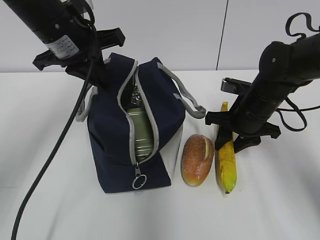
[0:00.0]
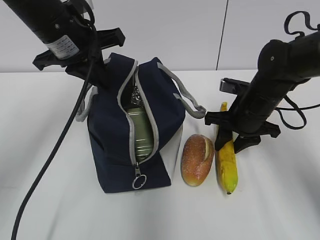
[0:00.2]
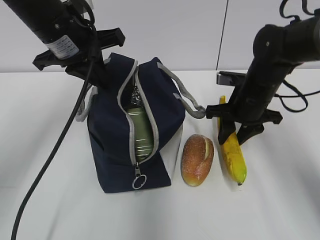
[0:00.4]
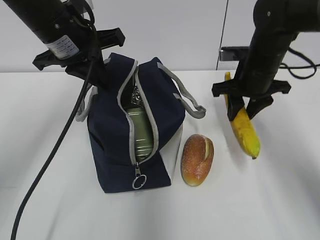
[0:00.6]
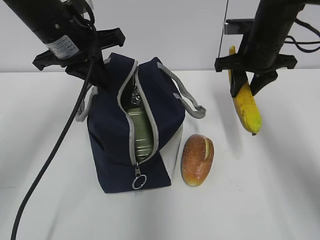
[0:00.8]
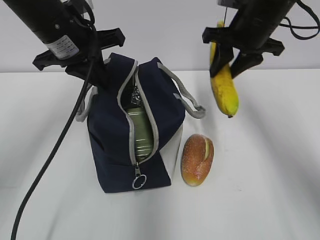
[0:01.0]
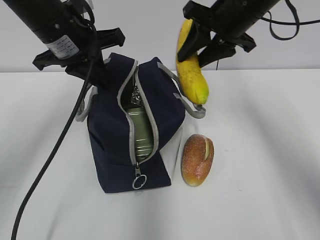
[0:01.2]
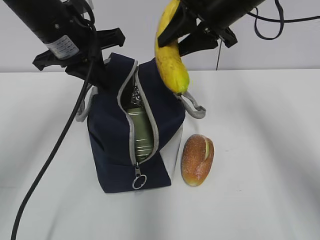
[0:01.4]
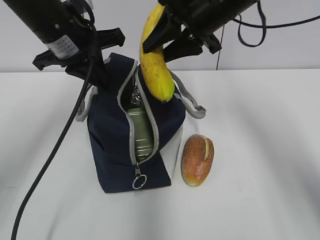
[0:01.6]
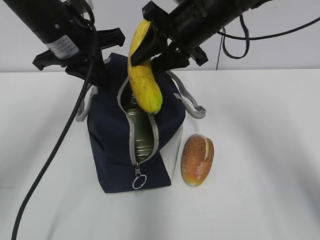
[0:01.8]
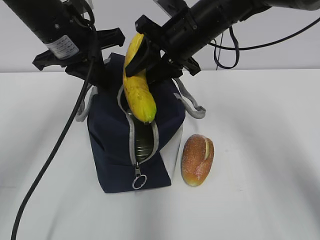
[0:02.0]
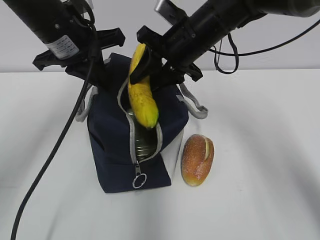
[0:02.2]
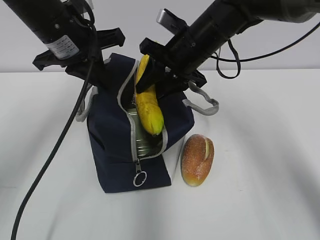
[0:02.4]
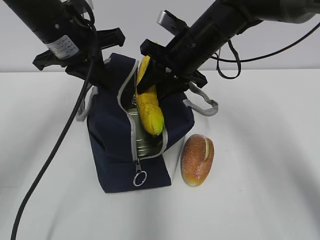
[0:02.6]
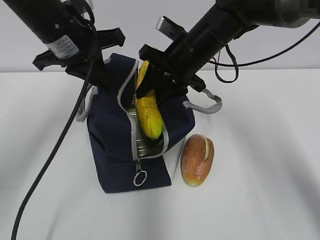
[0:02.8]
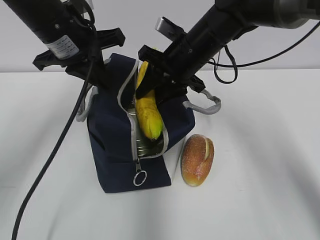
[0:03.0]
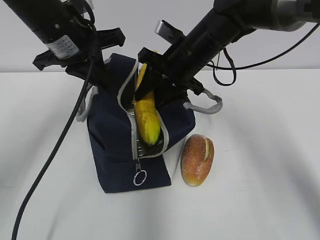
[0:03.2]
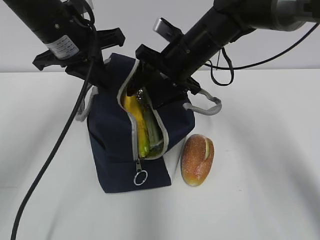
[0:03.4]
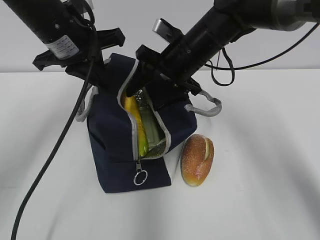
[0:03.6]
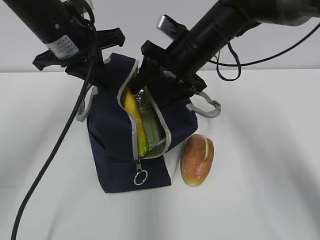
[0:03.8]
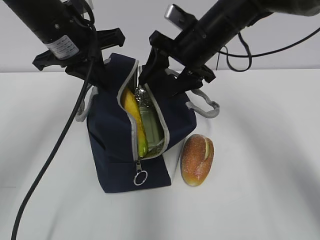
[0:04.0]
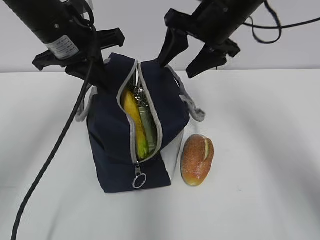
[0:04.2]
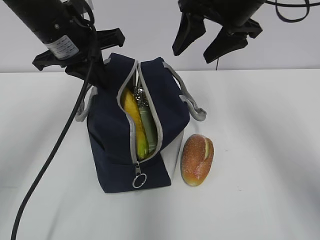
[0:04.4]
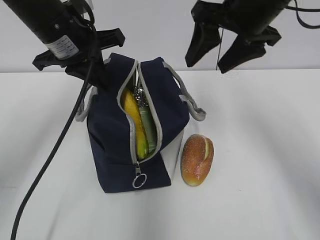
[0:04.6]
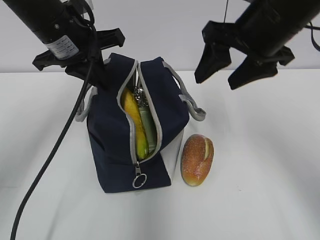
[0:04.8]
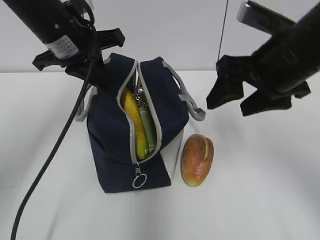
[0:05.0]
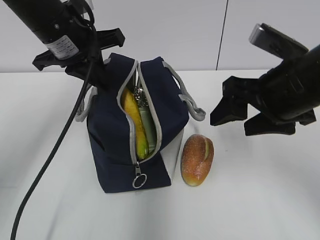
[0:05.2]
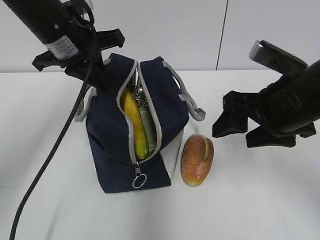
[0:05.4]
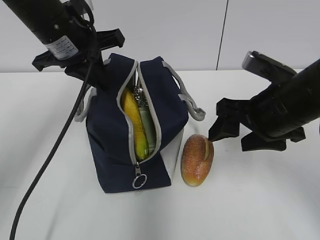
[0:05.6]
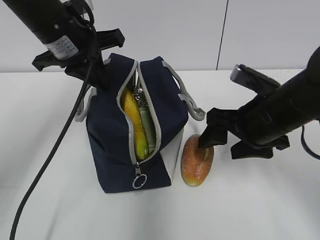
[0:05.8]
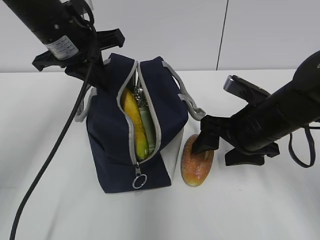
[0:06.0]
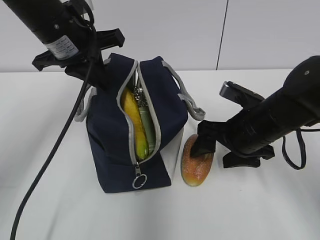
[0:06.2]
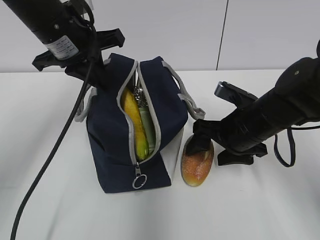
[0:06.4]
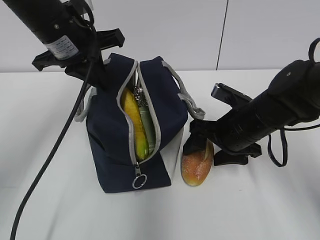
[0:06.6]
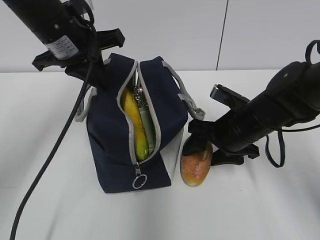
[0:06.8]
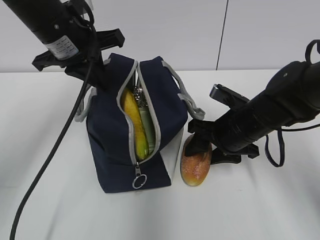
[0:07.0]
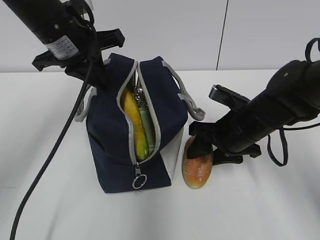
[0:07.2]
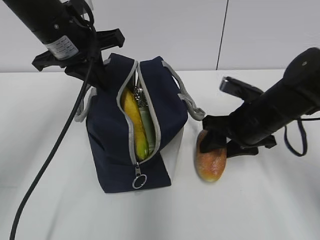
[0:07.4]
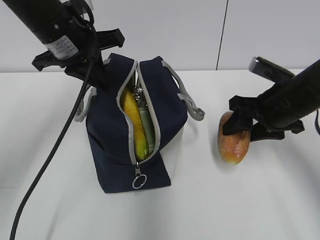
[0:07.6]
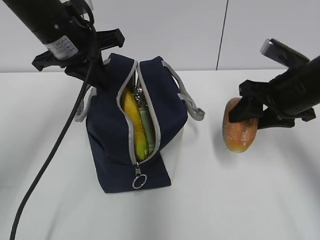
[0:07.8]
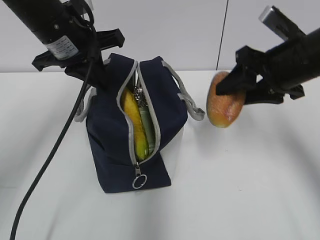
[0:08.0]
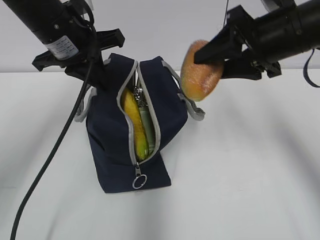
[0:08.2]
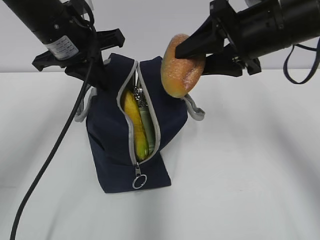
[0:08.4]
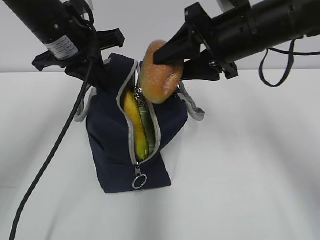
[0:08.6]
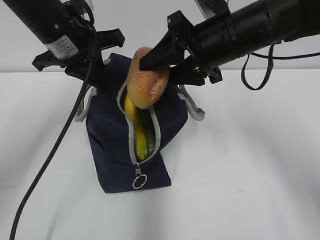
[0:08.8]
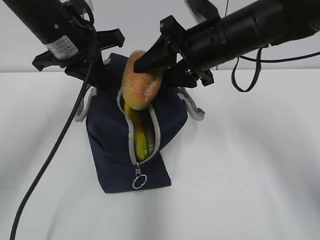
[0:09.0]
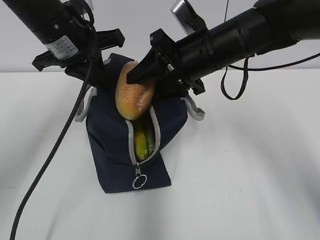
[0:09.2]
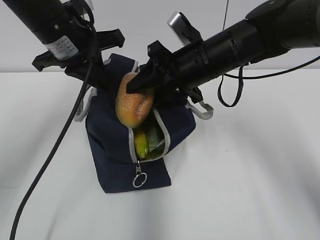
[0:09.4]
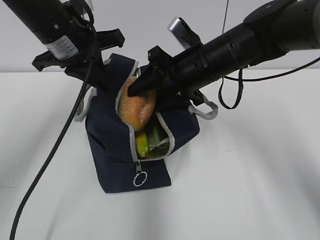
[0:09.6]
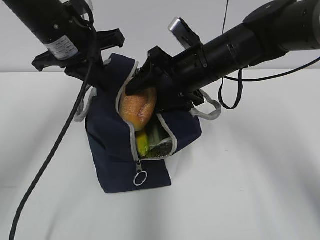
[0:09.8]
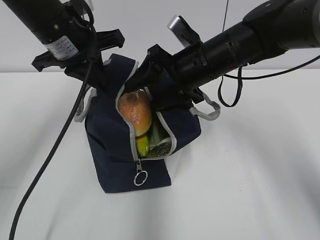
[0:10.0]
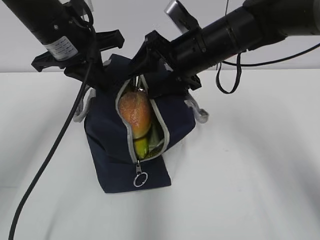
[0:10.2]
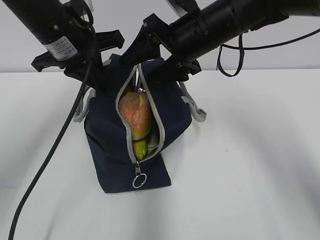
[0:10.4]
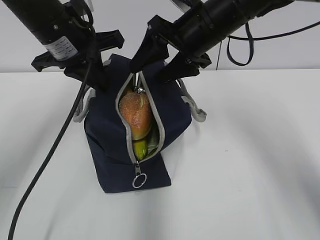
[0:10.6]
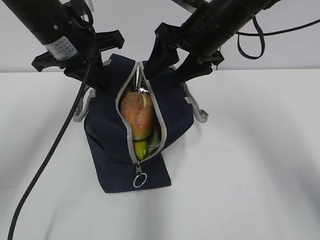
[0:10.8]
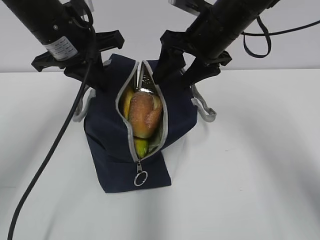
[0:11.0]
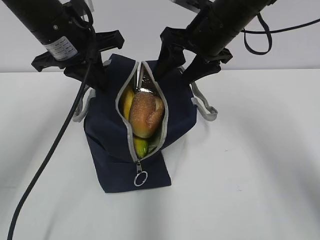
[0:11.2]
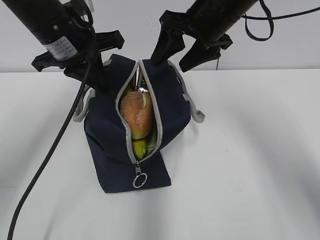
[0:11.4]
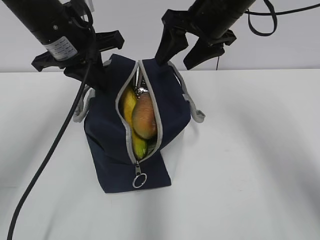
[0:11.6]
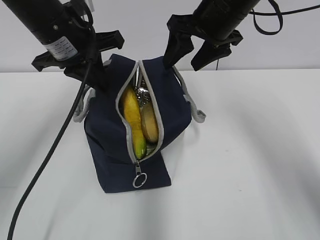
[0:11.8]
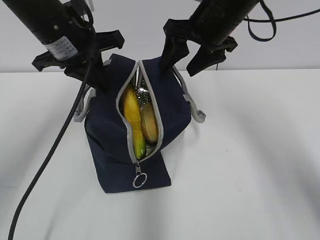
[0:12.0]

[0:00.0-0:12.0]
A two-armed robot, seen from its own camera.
0:00.0 to 0:01.6: The right gripper moves upward, approximately 20 cm.
0:01.6 to 0:03.0: The right gripper heads downward, covering roughly 10 cm.
0:03.0 to 0:04.4: The right gripper moves upward and to the right, about 10 cm, and opens up.
0:04.4 to 0:06.0: The right gripper shifts roughly 20 cm downward and backward.
0:06.0 to 0:07.6: The right gripper shifts by roughly 5 cm.
0:07.6 to 0:09.0: The right gripper heads to the left and upward, covering some 15 cm.
0:09.0 to 0:10.4: The grippers stay close to where they were, moving slightly.

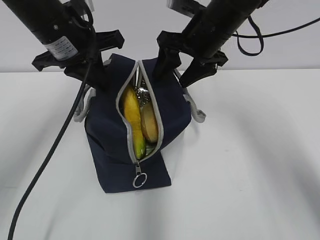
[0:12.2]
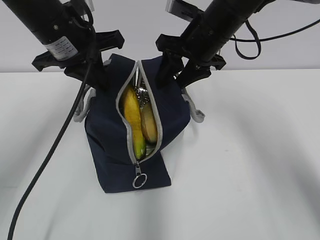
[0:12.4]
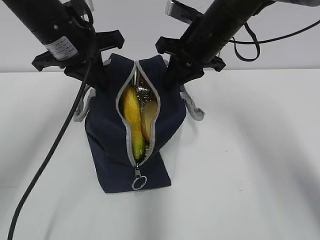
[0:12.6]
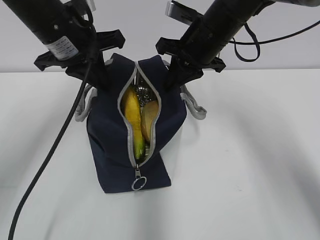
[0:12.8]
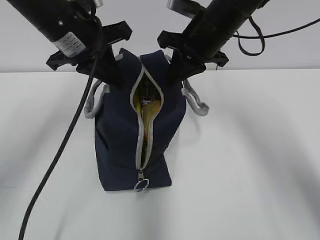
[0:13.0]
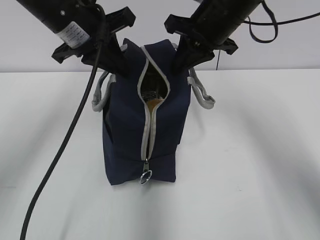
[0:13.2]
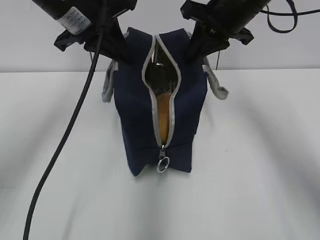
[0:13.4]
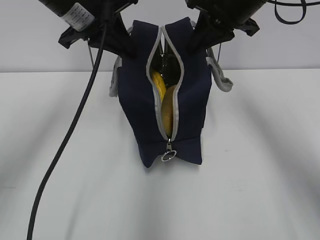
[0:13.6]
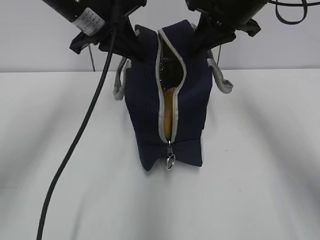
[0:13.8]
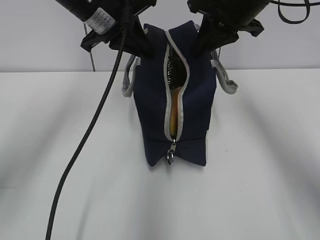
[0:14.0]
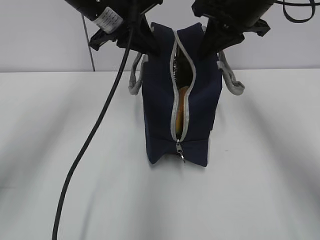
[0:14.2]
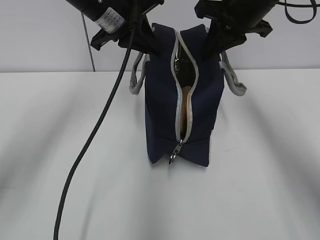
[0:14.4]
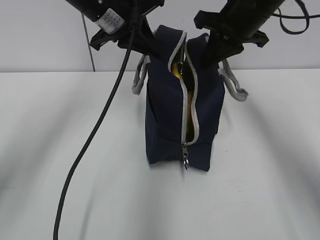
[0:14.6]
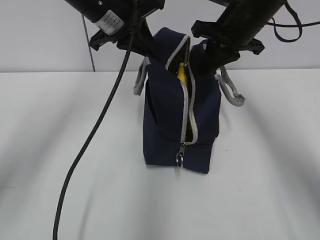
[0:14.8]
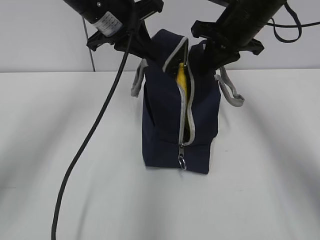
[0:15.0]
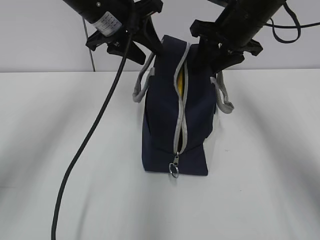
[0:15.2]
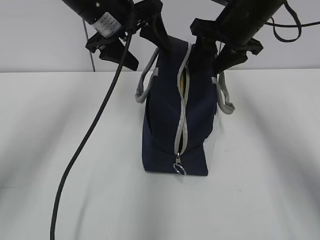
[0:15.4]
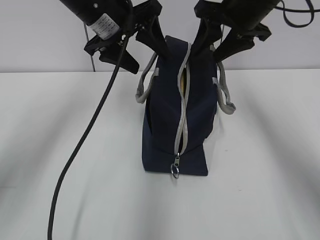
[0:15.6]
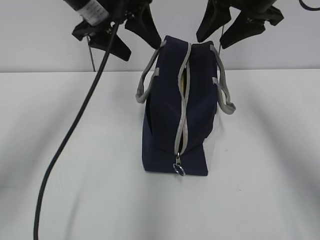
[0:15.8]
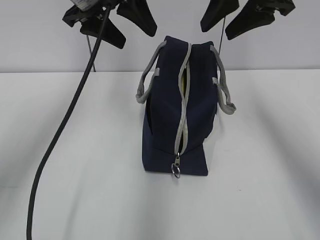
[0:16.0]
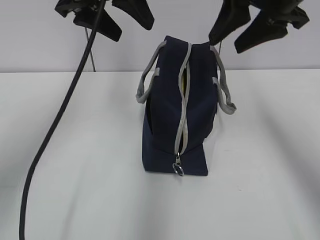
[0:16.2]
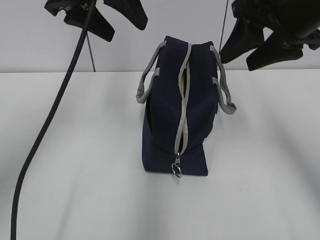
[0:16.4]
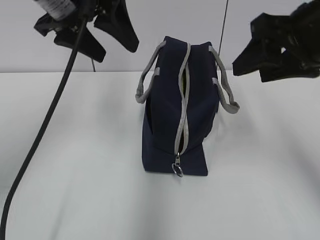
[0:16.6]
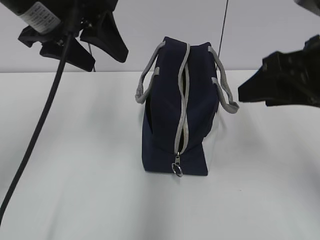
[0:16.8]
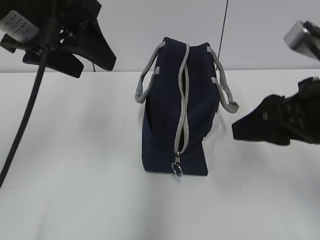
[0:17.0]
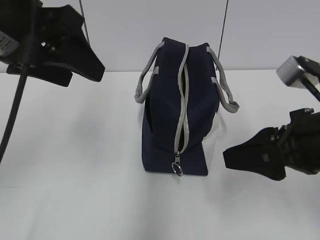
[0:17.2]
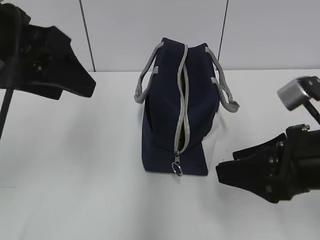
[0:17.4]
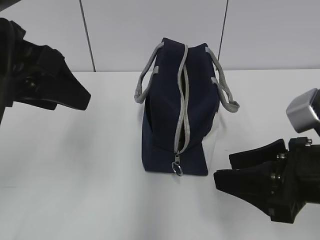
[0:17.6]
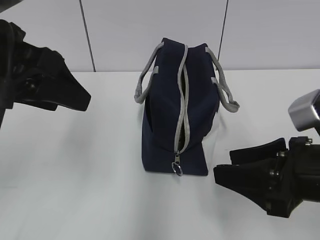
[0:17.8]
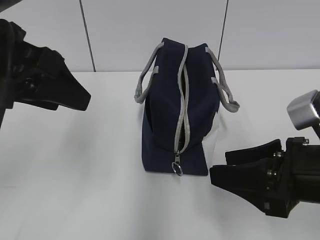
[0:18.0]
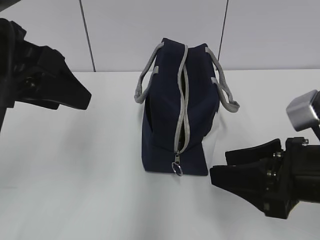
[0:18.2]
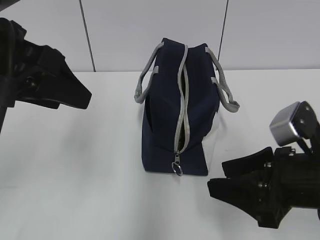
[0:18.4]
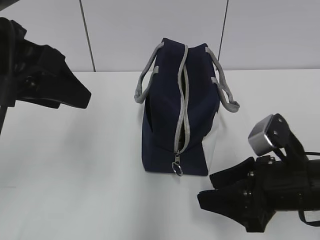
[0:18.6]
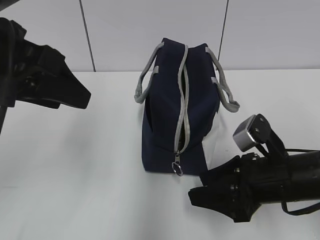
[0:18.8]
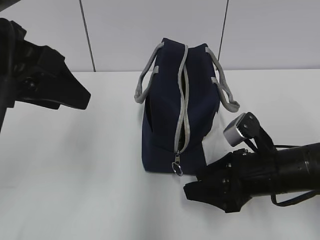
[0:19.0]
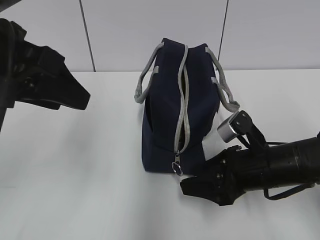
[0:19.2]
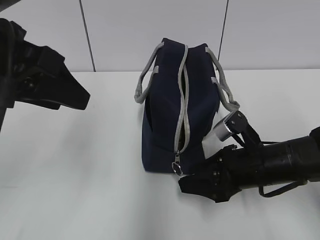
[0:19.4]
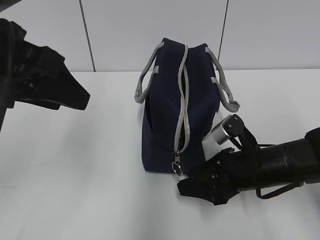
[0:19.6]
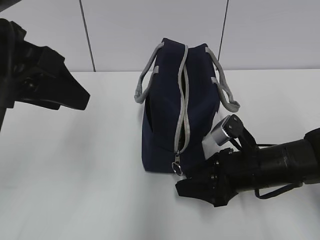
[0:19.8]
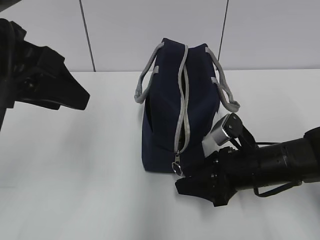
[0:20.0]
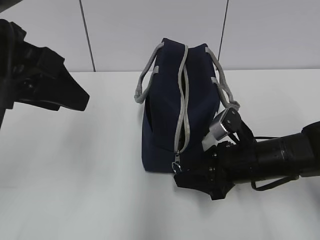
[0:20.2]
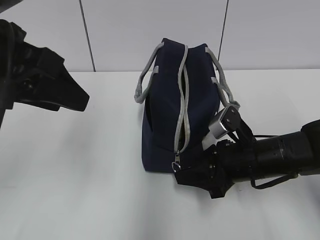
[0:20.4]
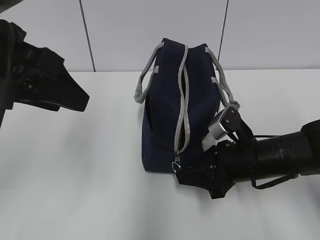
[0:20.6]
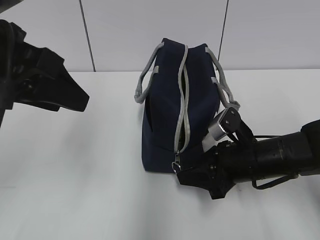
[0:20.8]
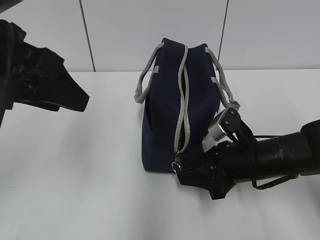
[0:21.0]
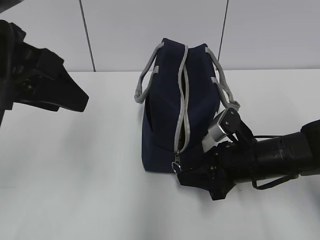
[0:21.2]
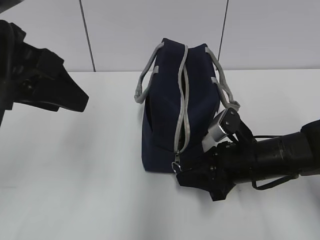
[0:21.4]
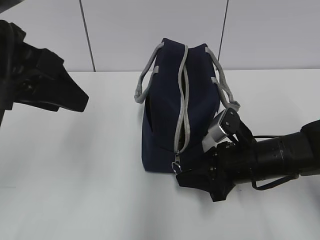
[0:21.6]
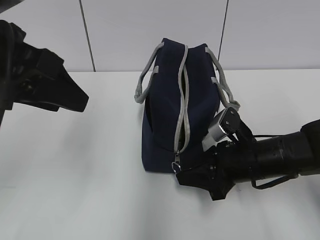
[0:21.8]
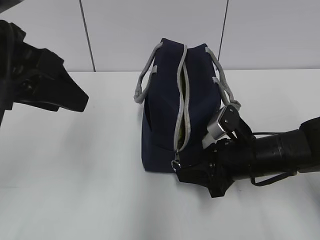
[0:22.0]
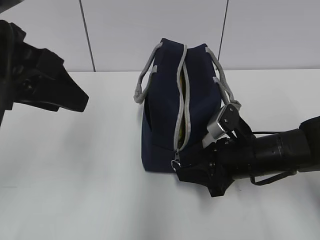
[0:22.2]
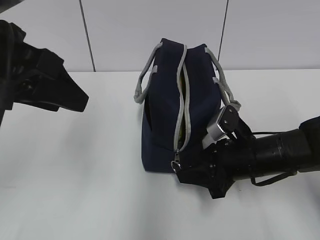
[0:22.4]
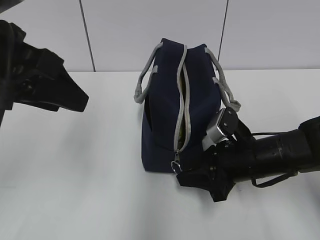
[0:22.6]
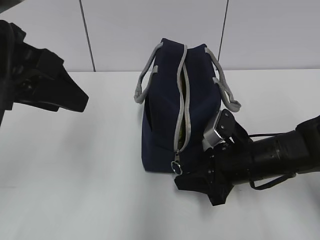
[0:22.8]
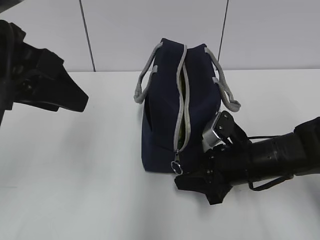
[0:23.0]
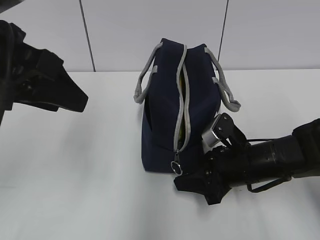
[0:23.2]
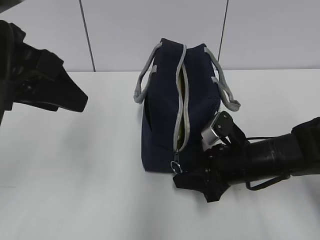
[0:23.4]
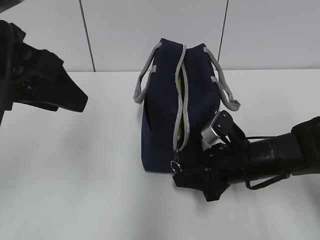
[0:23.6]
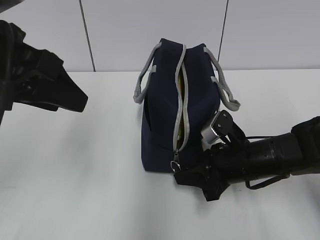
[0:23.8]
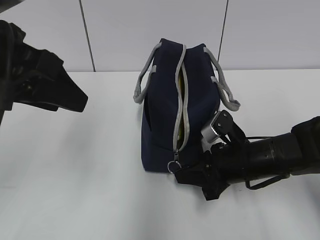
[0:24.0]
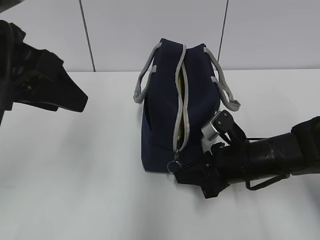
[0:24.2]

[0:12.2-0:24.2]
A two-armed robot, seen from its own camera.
0:12.2 to 0:13.8: The right gripper moves upward, approximately 5 cm, and closes up.
0:13.8 to 0:15.2: The right gripper changes place by about 5 cm, and opens its fingers; the left gripper opens up.
0:15.2 to 0:16.6: The right gripper is displaced backward by some 15 cm, while the left gripper shifts roughly 10 cm backward and upward.
0:16.6 to 0:18.2: The right gripper shifts approximately 15 cm downward and backward, while the left gripper shifts about 10 cm backward and to the left.
0:18.2 to 0:19.8: The right gripper goes roughly 15 cm downward and forward.
0:19.8 to 0:21.2: There are only small adjustments of the grippers.
0:21.2 to 0:22.6: Both grippers stay put.
0:22.6 to 0:24.2: The right gripper closes up.
